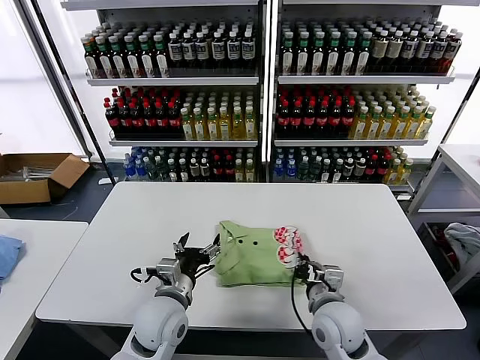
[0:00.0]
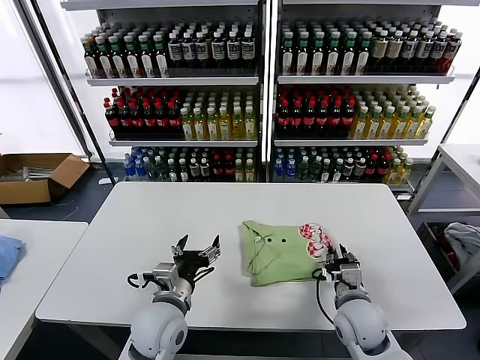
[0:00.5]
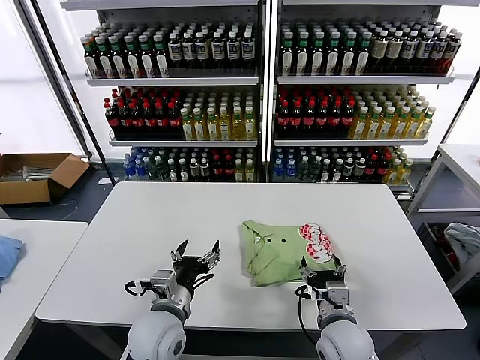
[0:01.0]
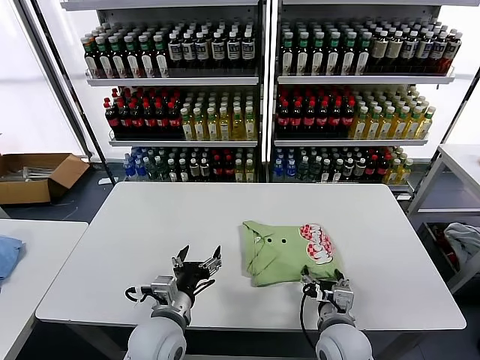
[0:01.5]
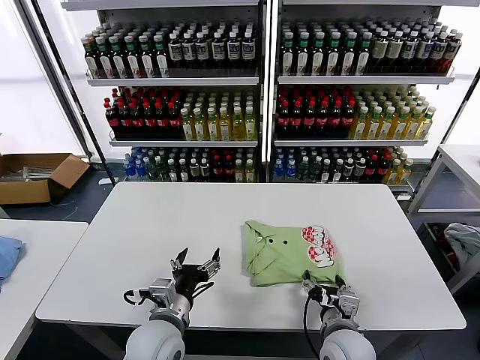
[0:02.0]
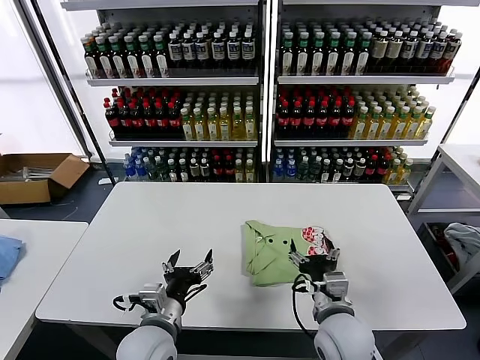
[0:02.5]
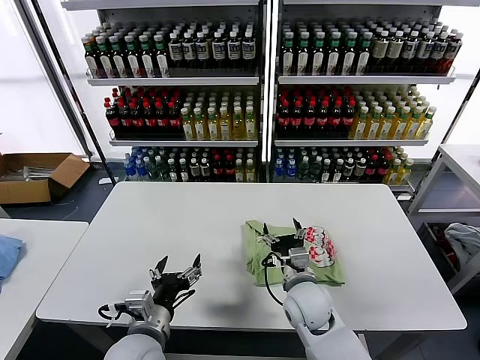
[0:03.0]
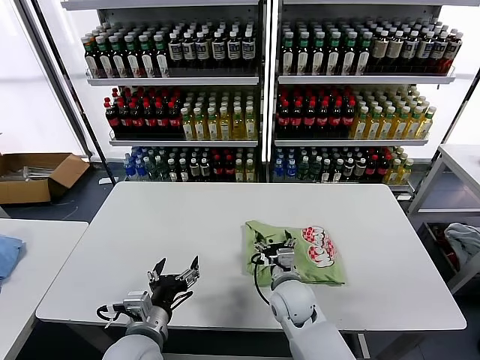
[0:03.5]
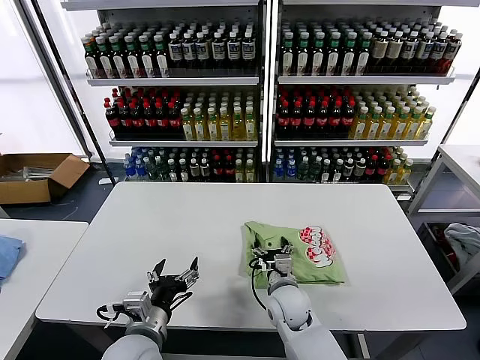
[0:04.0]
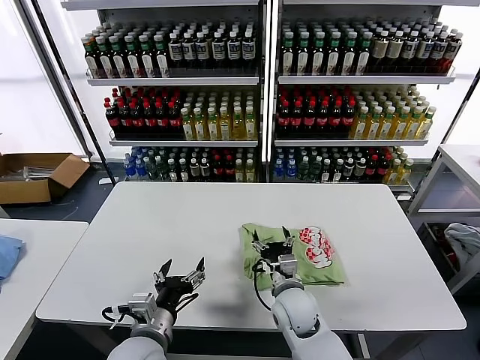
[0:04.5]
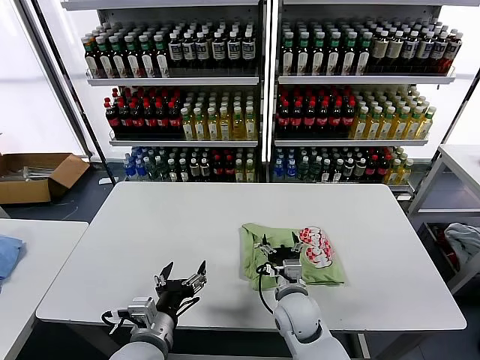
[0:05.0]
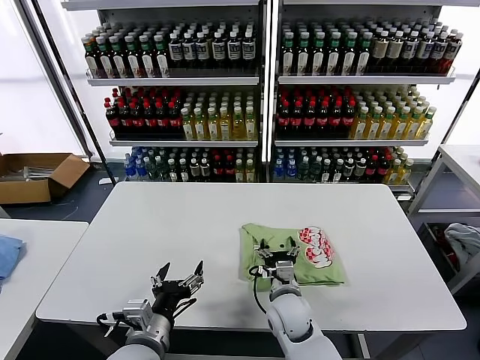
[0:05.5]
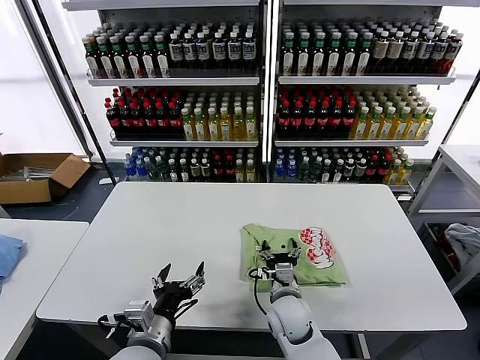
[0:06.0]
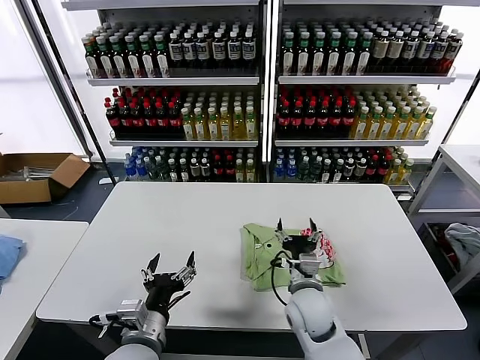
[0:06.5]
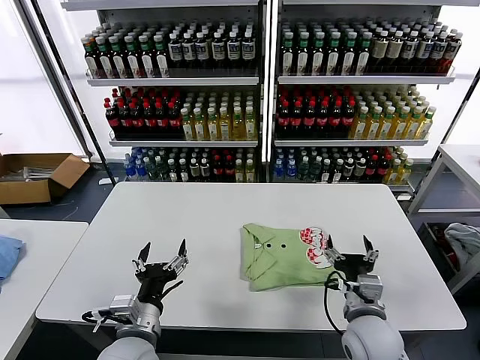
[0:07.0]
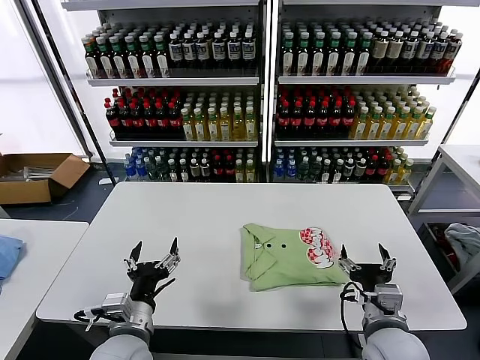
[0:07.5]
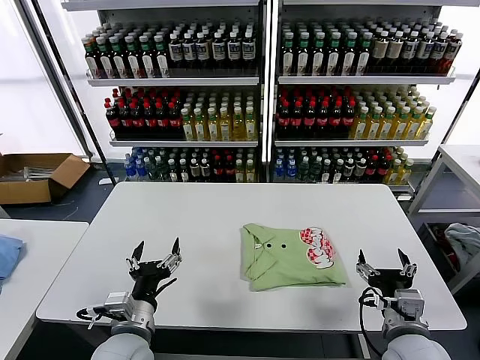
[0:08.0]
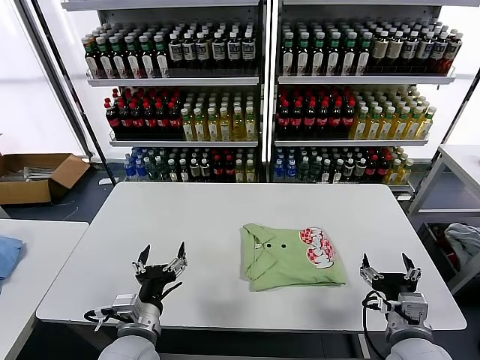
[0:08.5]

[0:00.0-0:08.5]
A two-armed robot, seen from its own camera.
Task of the whole recording: fold and organize the clothes.
Step, 0:00.0 to 0:06.0: Drag the clothes to the center of the table.
0:00.0 to 0:02.0: The right gripper changes place by about 5 cm, and opens up.
0:02.0 to 0:04.0: The right gripper heads forward and to the left, covering approximately 15 cm.
0:04.0 to 0:06.5: The right gripper ends up approximately 5 cm from where it was.
0:06.5 to 0:08.5: The right gripper is displaced to the right, backward and upward by some 20 cm.
